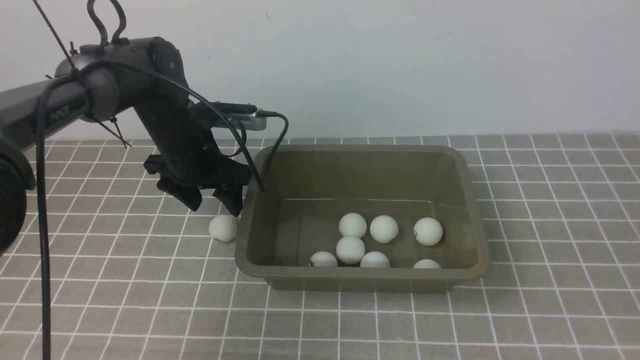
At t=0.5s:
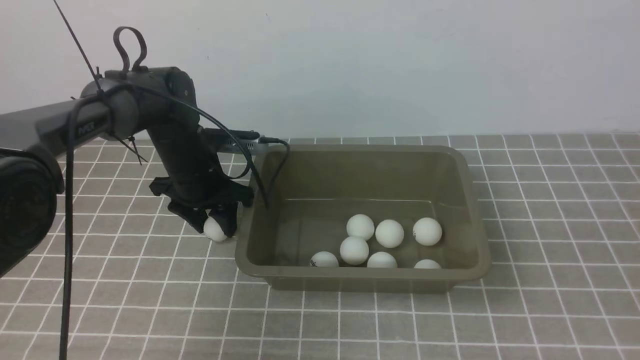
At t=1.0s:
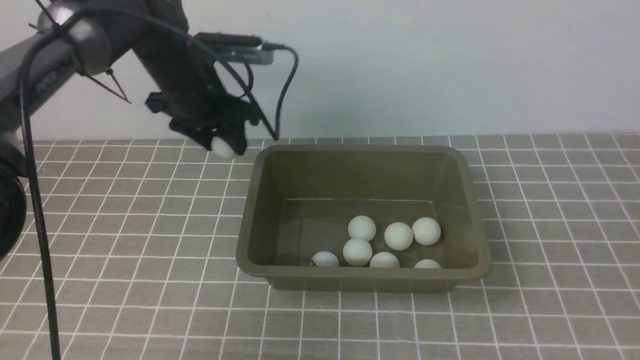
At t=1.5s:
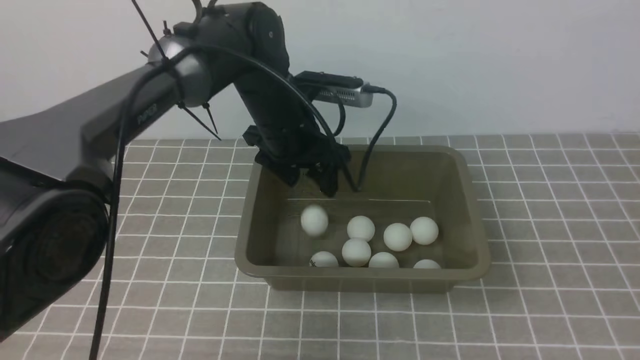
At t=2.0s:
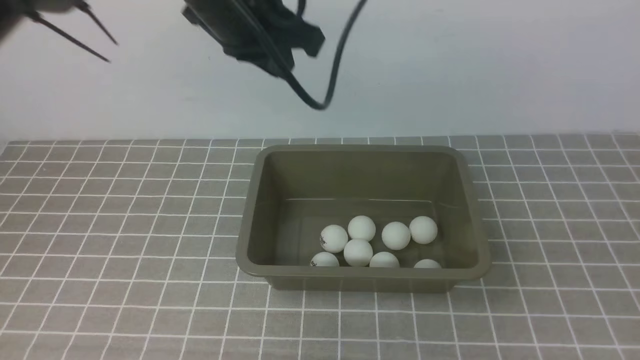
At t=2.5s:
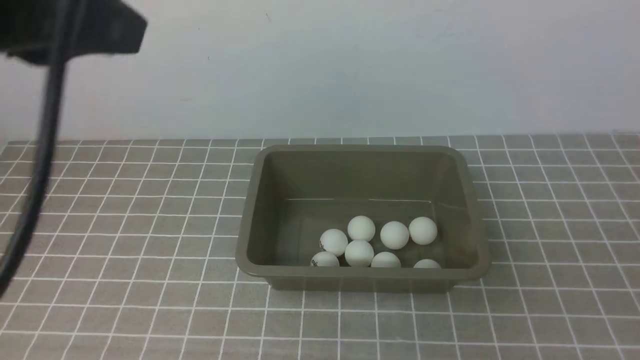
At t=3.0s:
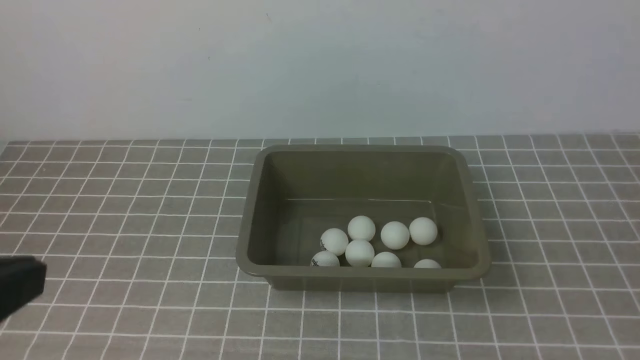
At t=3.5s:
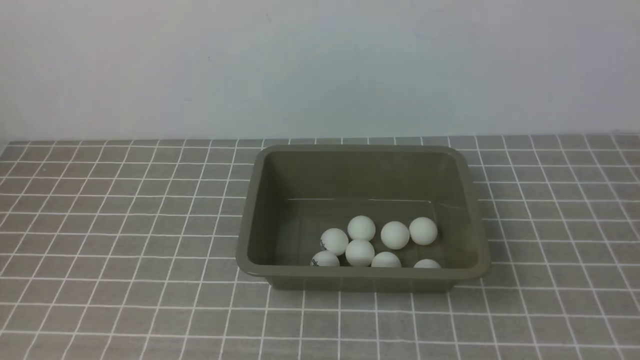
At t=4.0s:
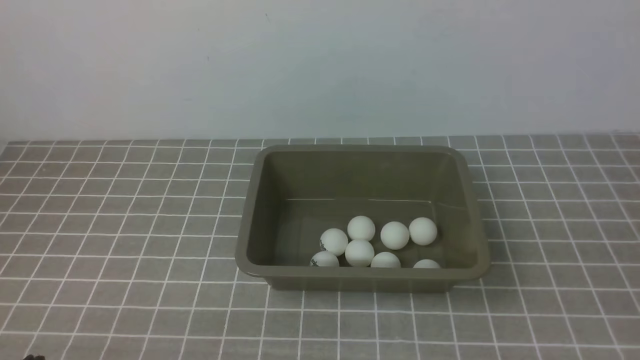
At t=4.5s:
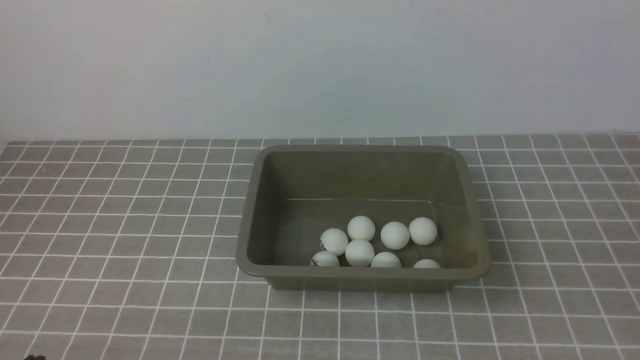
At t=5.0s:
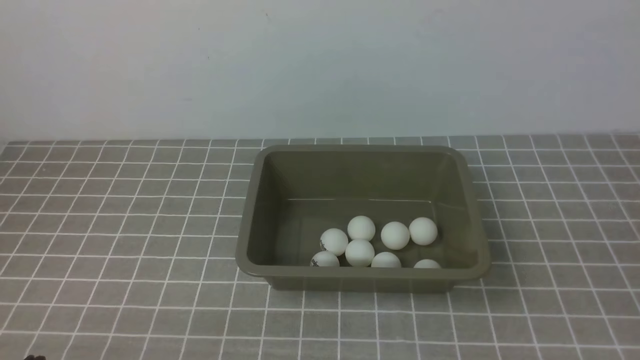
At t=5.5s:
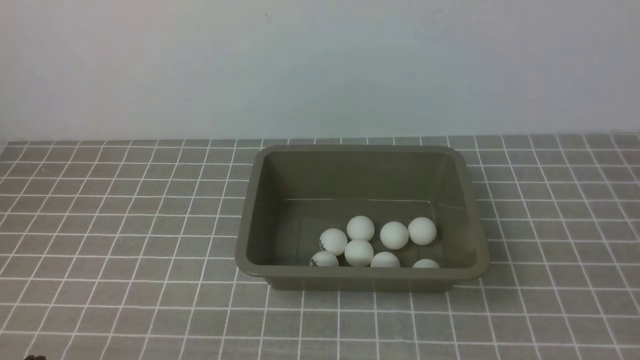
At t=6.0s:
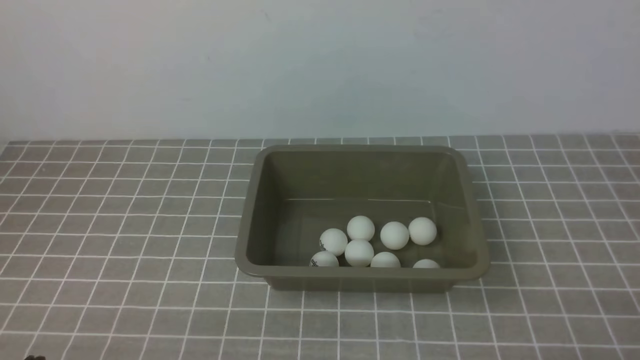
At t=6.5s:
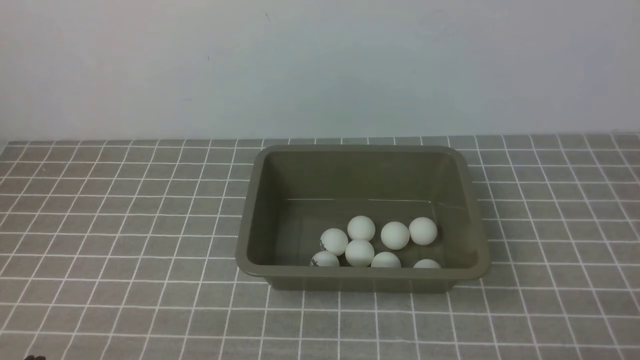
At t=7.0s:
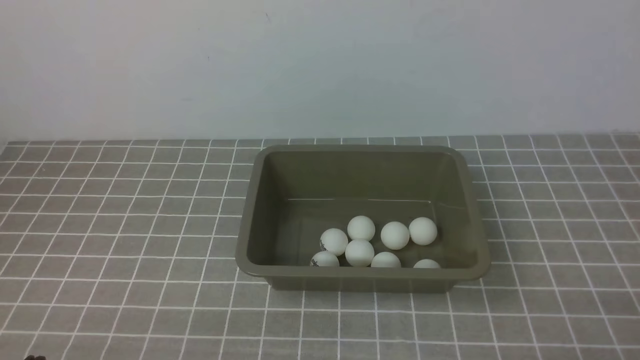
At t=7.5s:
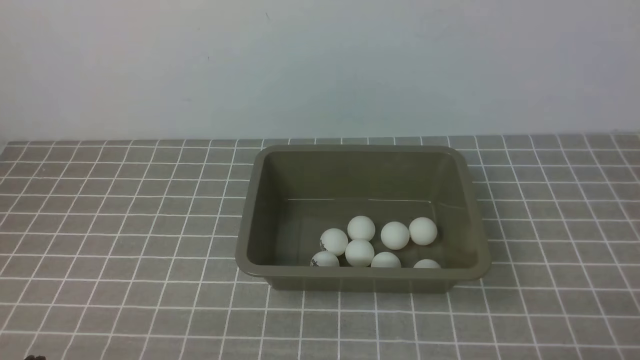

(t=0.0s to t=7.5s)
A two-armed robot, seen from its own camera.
Step, t=1.0s - t=1.5s: use the left arm to put the table tennis ball into the box.
t=0.0s - t=2.0s: The left gripper goes about 25 cm upward, and closes.
t=2.0s - t=4.0s: The left gripper heads backward, downward and to the left, covering roughly 40 cm.

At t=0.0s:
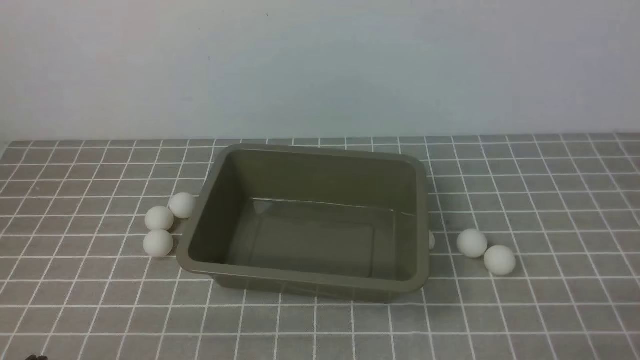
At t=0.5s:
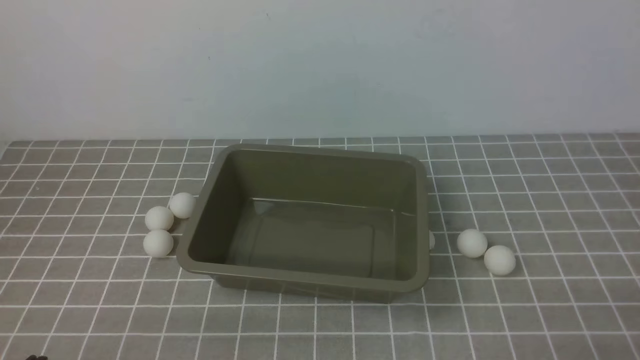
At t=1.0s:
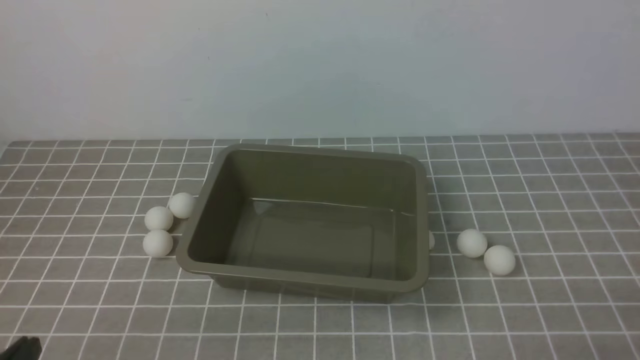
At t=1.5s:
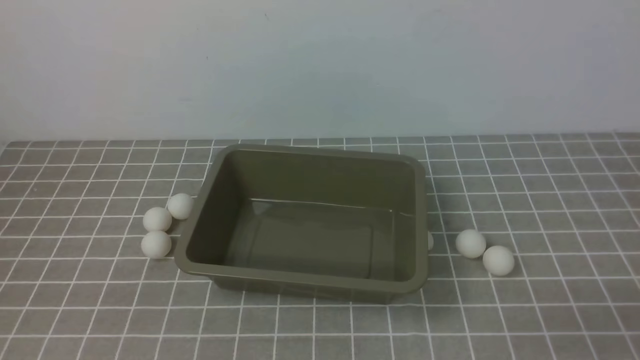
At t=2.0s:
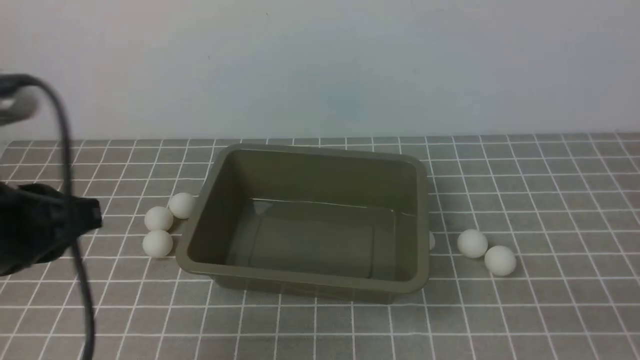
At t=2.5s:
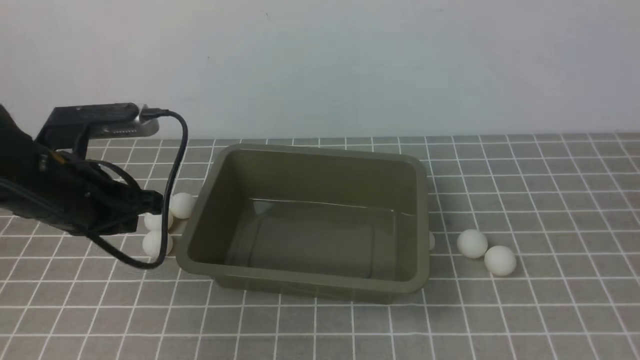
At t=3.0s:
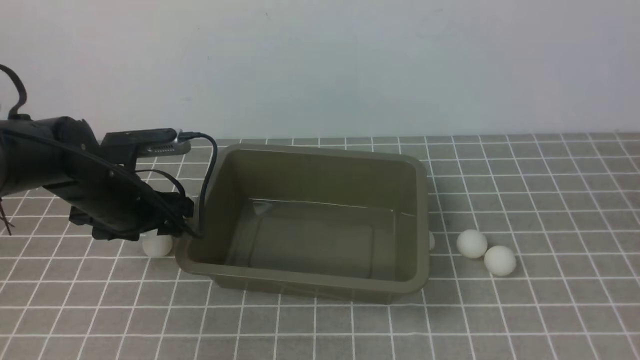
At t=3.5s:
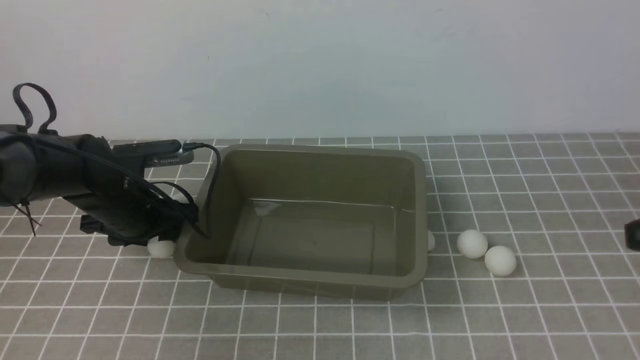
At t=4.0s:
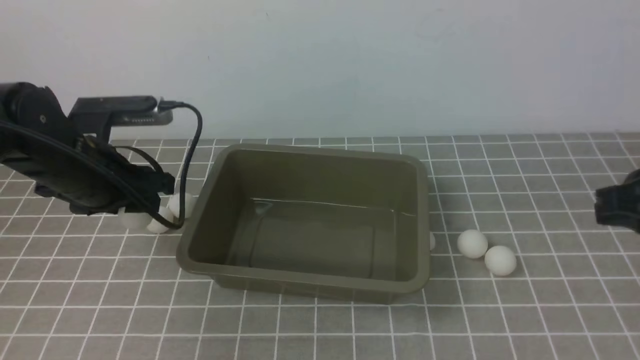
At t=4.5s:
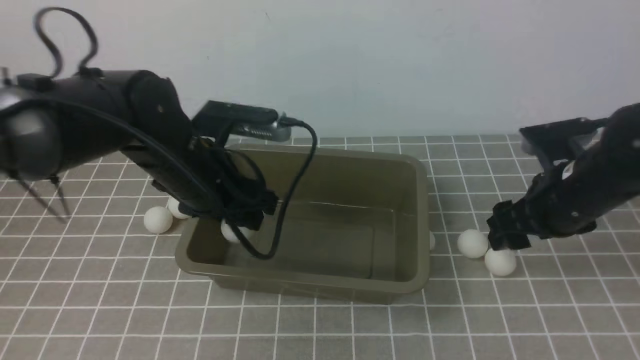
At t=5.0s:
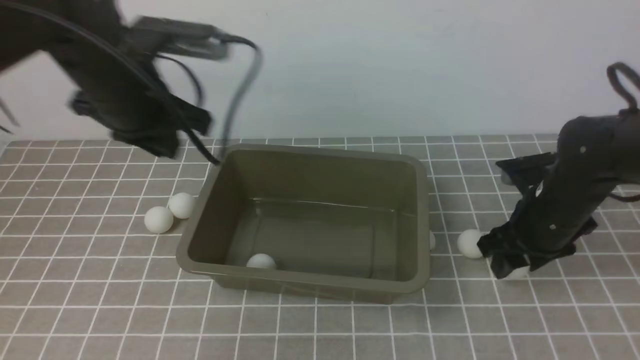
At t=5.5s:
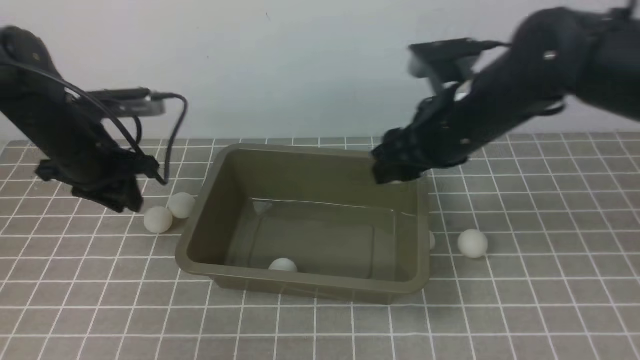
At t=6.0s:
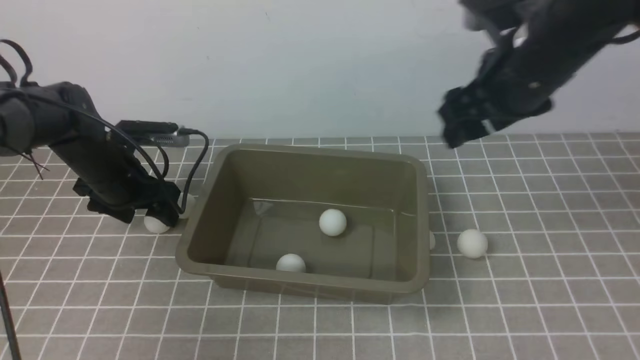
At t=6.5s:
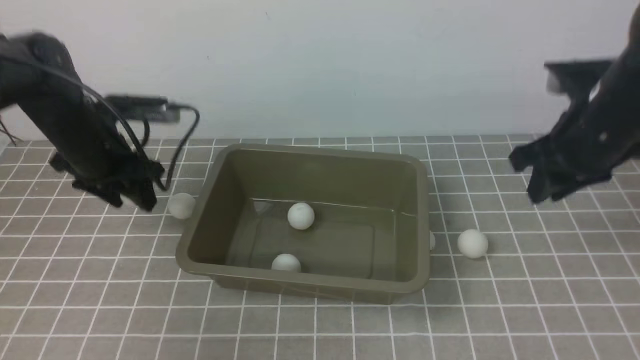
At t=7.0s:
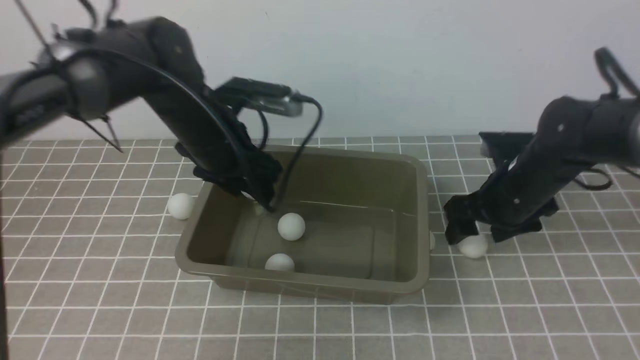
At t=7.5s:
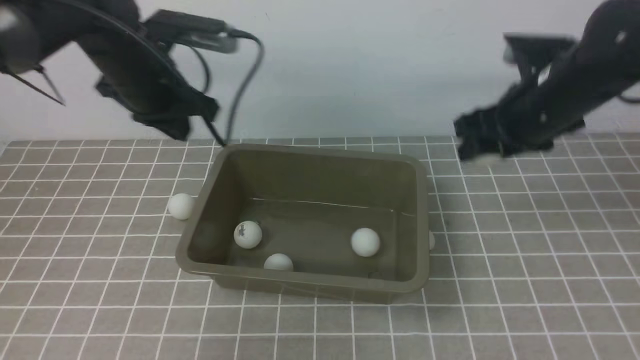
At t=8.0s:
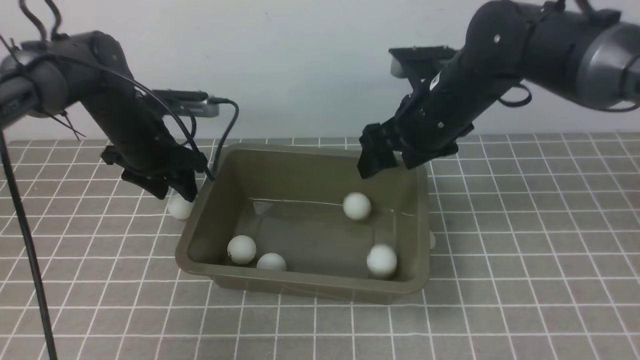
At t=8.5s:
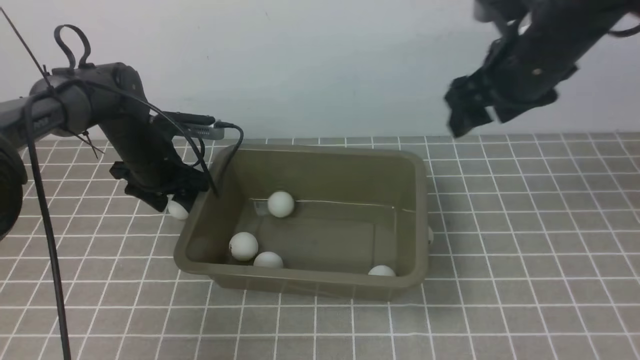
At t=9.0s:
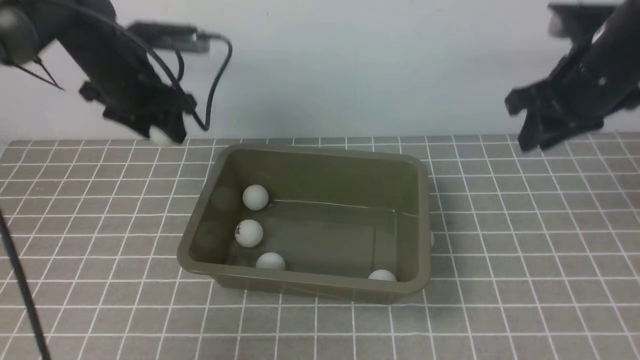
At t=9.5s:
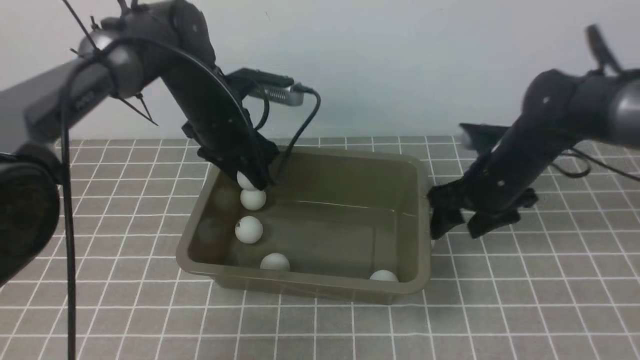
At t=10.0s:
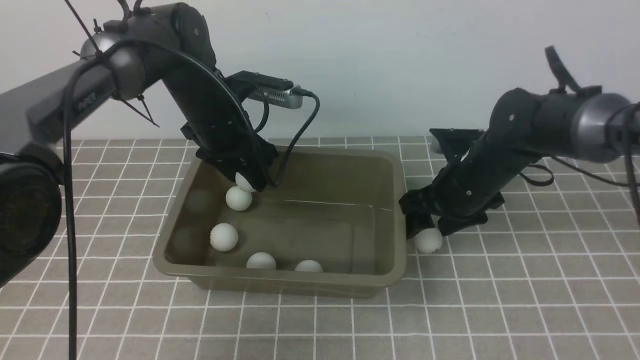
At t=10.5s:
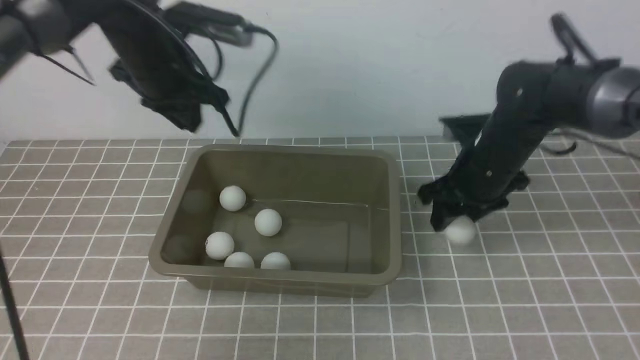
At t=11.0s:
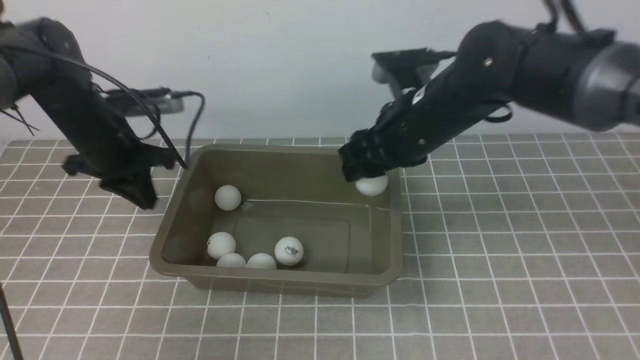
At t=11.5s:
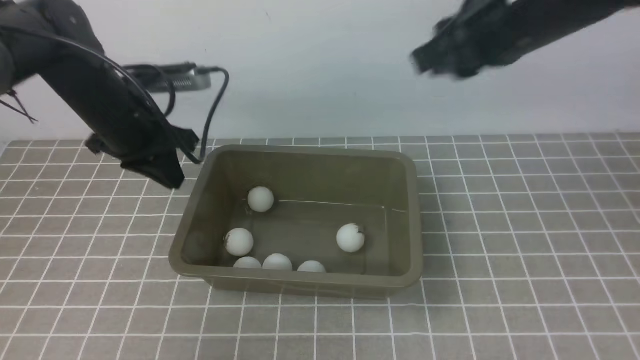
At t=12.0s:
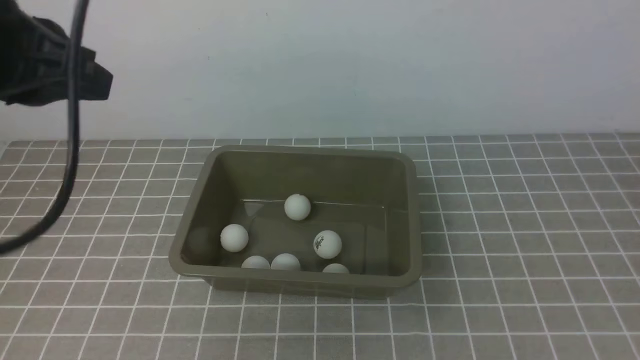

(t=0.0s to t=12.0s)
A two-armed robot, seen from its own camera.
Step, t=0.0s - t=3.5s: use the left arm to clamp the table tennis ball closest to it.
Step, t=4.0s - t=4.5s: use the left arm to put the table tennis ball into the box.
Step, t=6.5s - t=7.0s: use the left arm to put the table tennis ball into the box.
Step, t=7.5s - t=8.0s: use the right arm to put the table tennis ball into the box.
Step, t=8.5s - t=10.0s: use the left arm to put the table tennis ball into the box.
t=0.0s - t=2.0s: The left gripper travels upward and forward by about 20 cm. Meanwhile the right gripper is displaced upward by approximately 5 cm.
t=2.0s - t=4.0s: The right gripper heads forward, covering some 15 cm. The left gripper travels forward and downward by roughly 20 cm, and opens up.
t=4.0s - t=6.0s: The right gripper is displaced forward and to the left by roughly 15 cm, and opens, while the left gripper shifts roughly 15 cm forward, downward and to the left, and closes and opens again.
t=6.0s - t=8.0s: The left gripper travels to the right and back again, roughly 15 cm each way, and closes, then opens again. Meanwhile the right gripper moves to the left, approximately 5 cm, moves some 15 cm downward and comes back, and closes and opens again.
t=8.0s - t=10.0s: The right gripper travels downward by about 10 cm, and closes and opens again. The left gripper heads to the right, covering approximately 10 cm.
t=10.0s - t=12.0s: Both grippers move backward and upward, some 35 cm. The right gripper closes; the left gripper closes its fingers.
